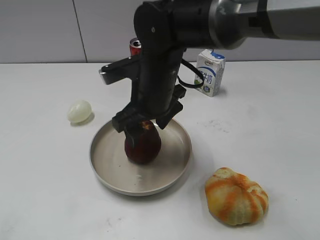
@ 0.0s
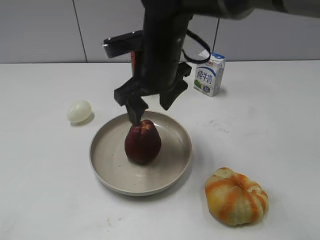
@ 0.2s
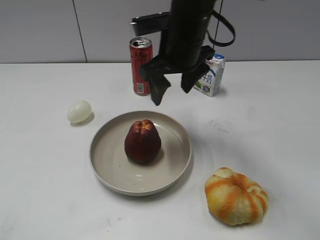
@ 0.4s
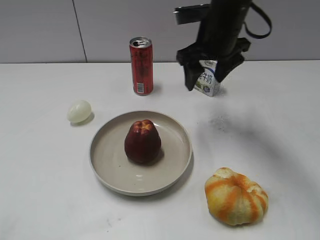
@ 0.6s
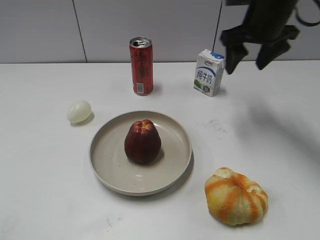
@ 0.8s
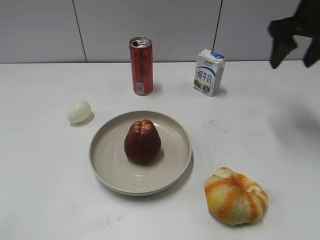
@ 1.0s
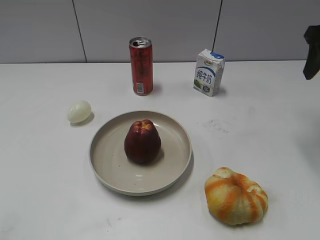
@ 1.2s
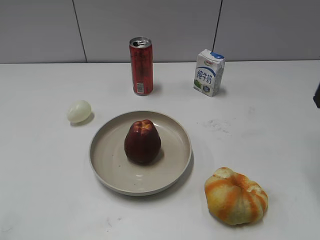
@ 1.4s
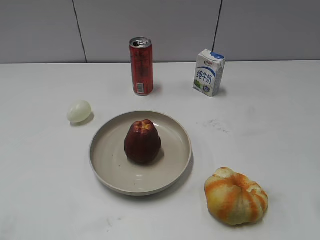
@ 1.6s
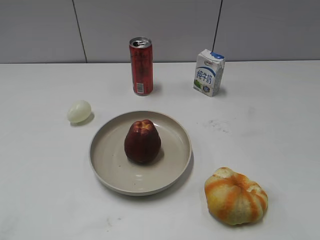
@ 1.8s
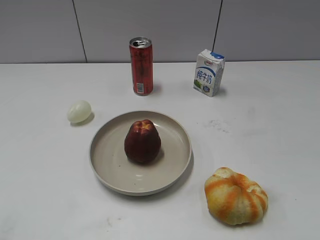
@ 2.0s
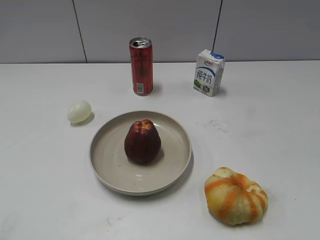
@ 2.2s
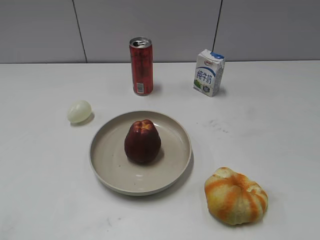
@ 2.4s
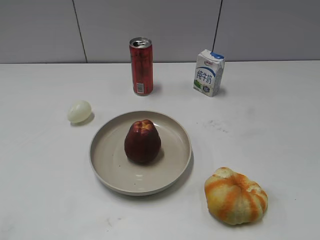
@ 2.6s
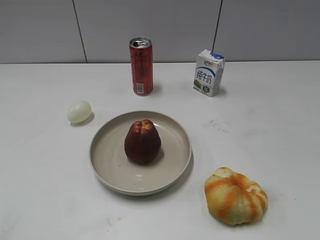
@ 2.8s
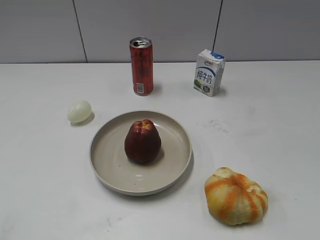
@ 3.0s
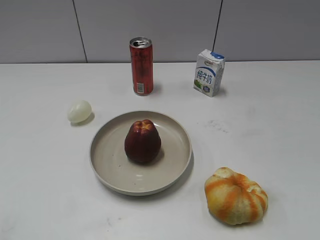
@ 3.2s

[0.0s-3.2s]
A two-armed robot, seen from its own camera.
0.0s to 1.6s: The right gripper is displaced to the right by some 30 cm, and closes its fingers.
